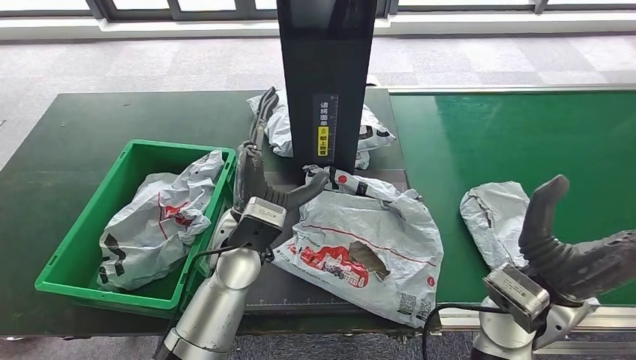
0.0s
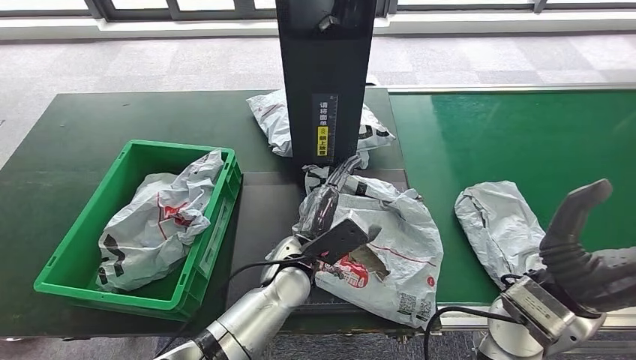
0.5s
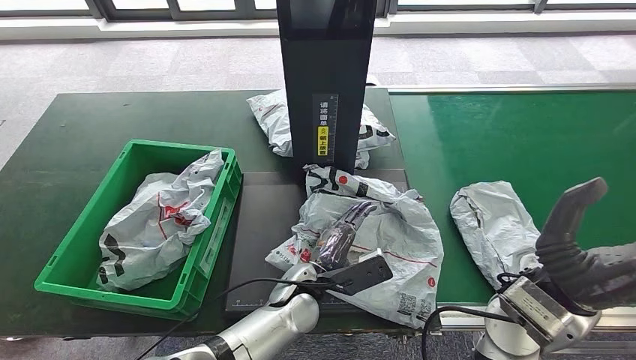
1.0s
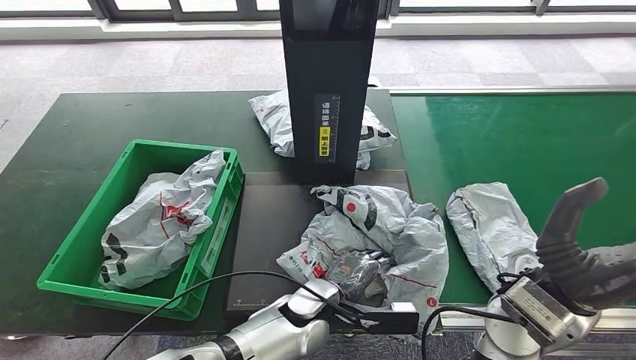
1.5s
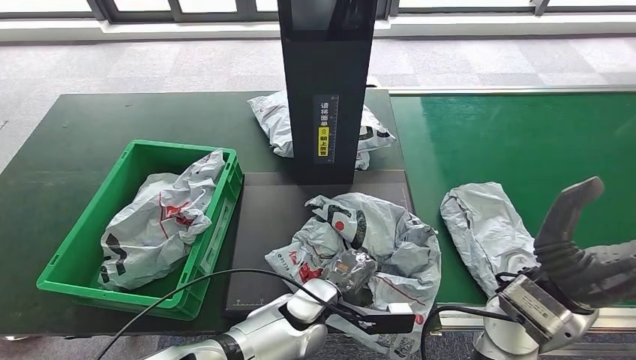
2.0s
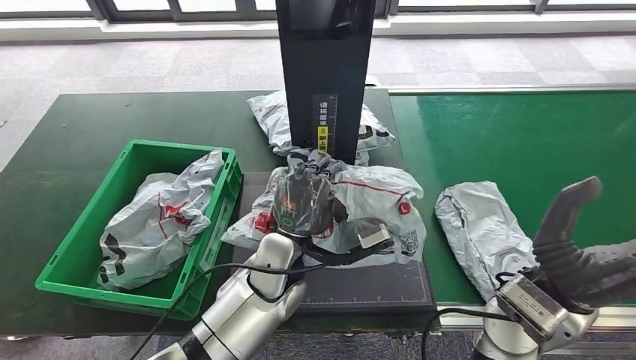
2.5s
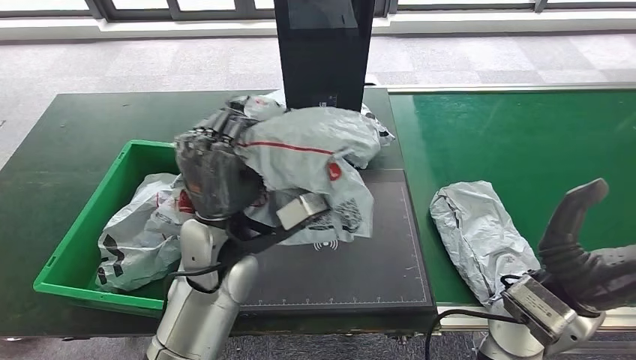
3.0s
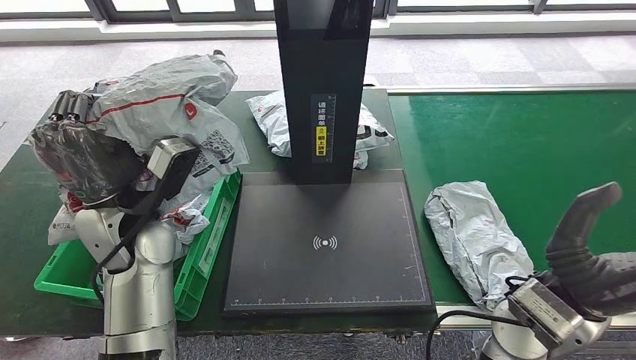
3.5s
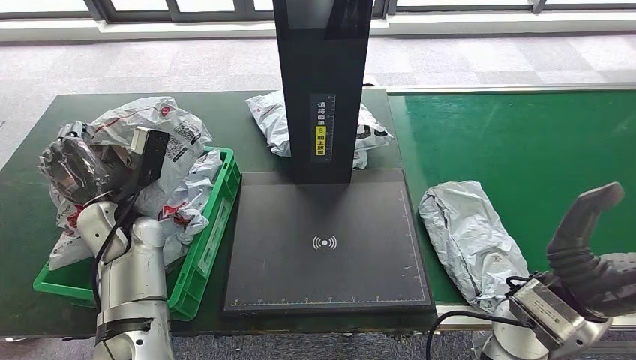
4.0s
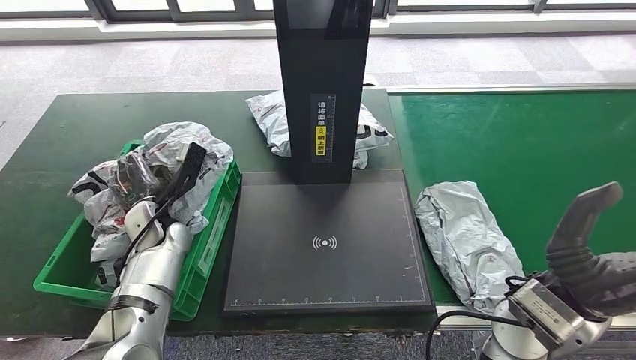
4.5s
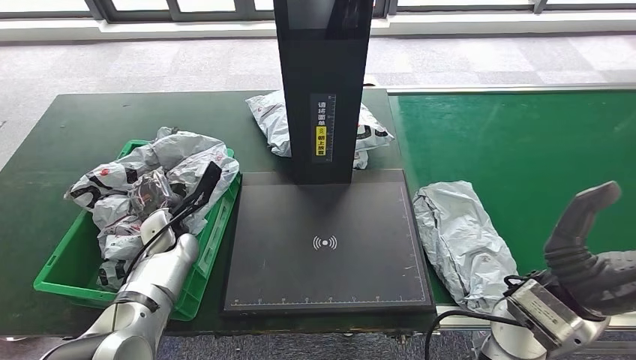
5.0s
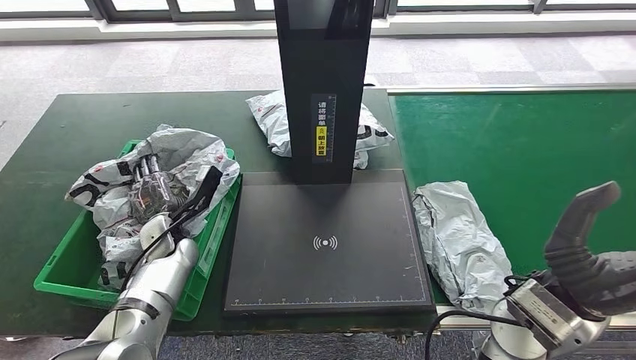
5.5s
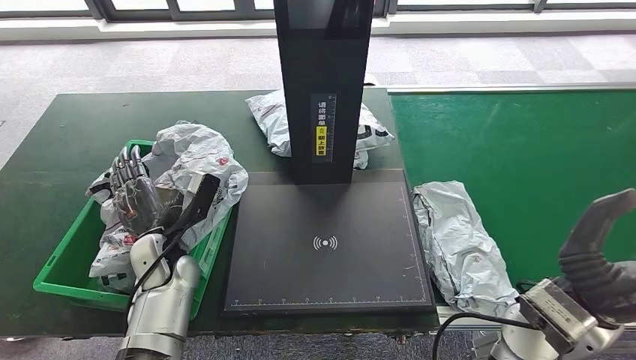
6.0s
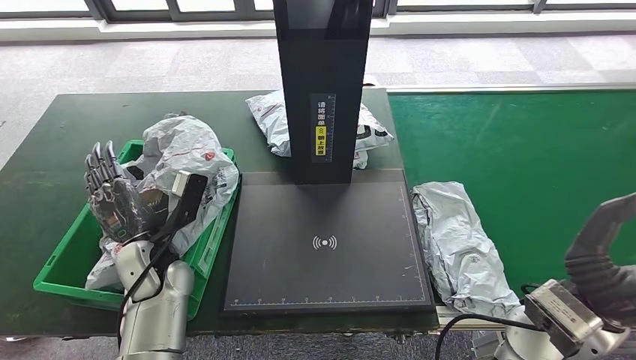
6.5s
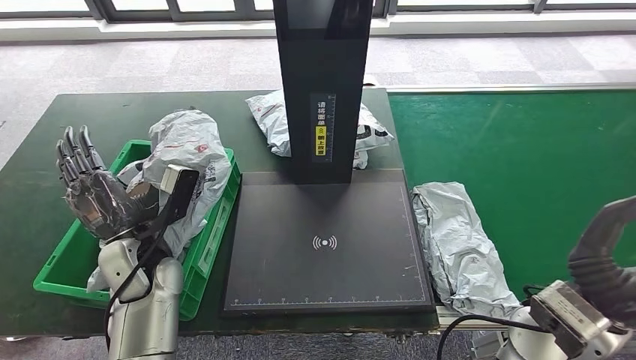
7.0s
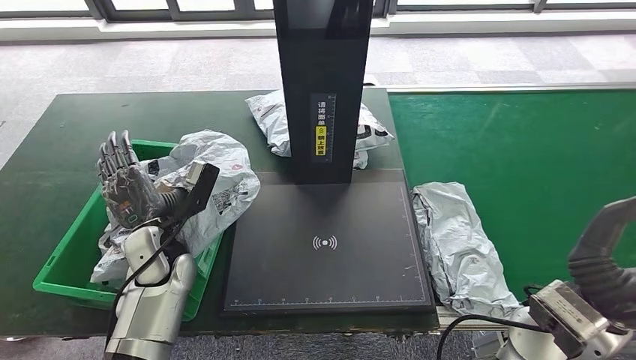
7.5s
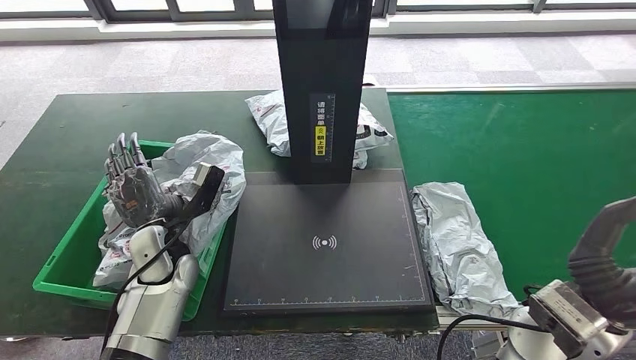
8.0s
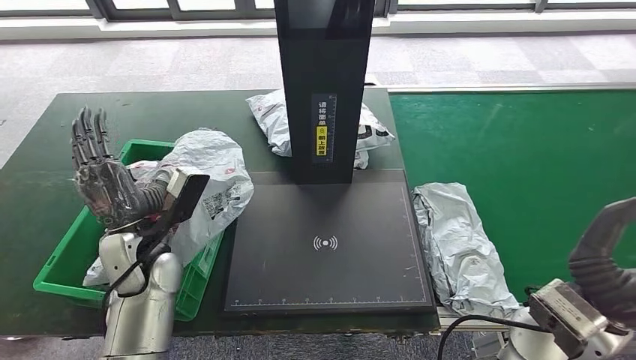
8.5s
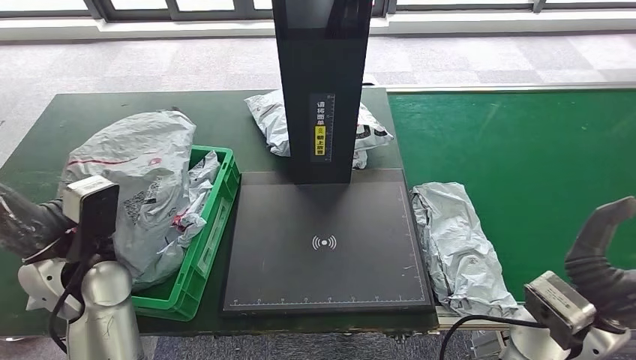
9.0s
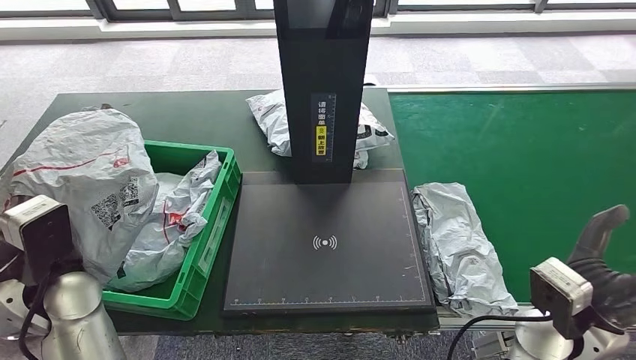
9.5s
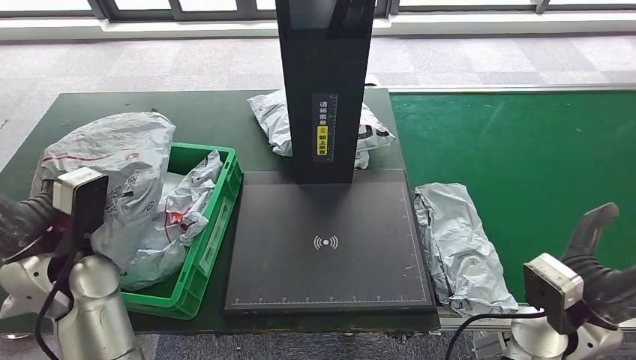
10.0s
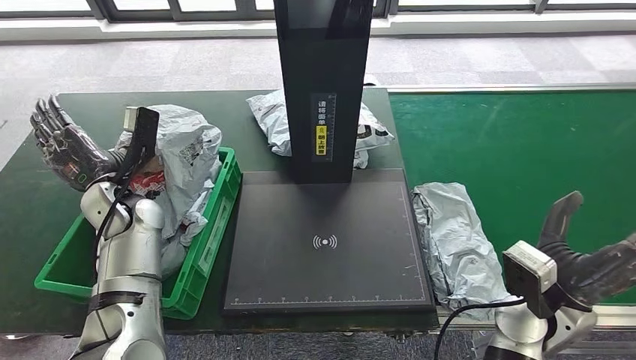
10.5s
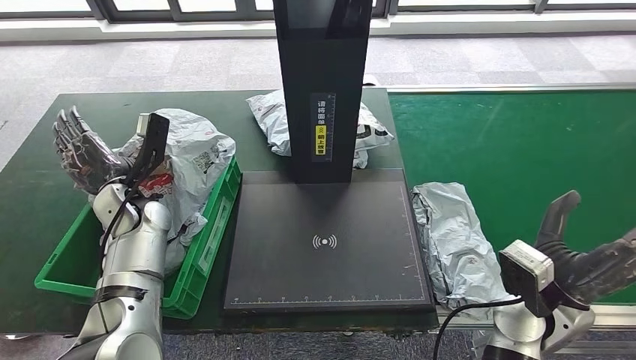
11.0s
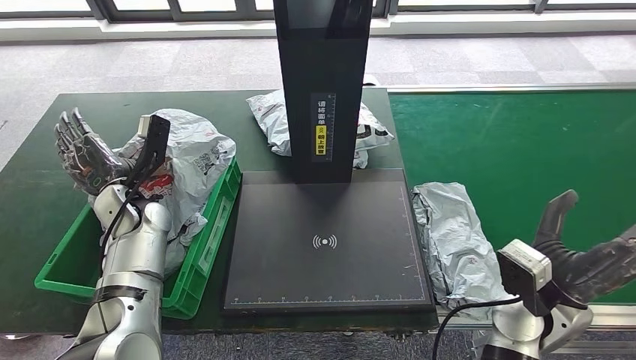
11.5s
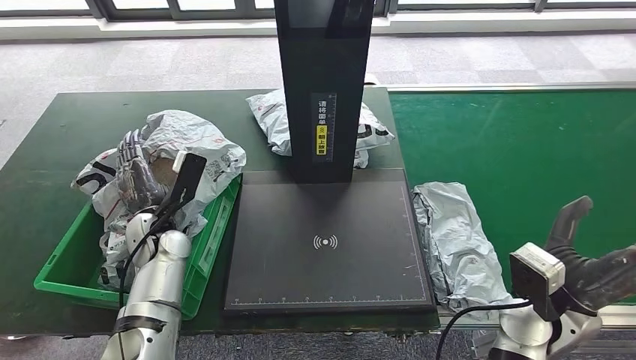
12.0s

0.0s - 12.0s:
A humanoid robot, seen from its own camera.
Step, 0.0s - 2.5s: Pick up the parcel from the inbound machine.
Step, 3.0s - 5.5s: Place the parcel into the delivery box.
6.0s - 8.0s: The hands move only a little.

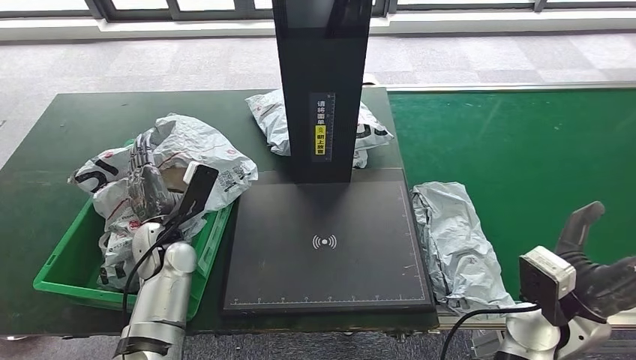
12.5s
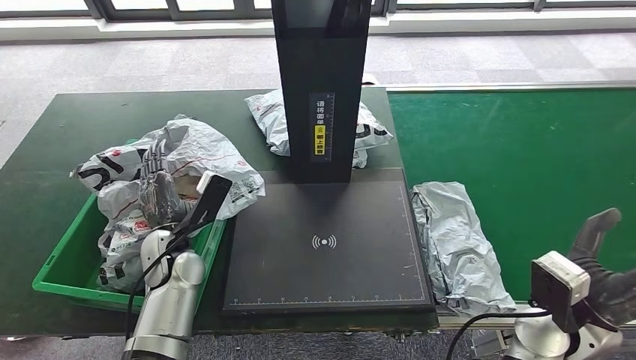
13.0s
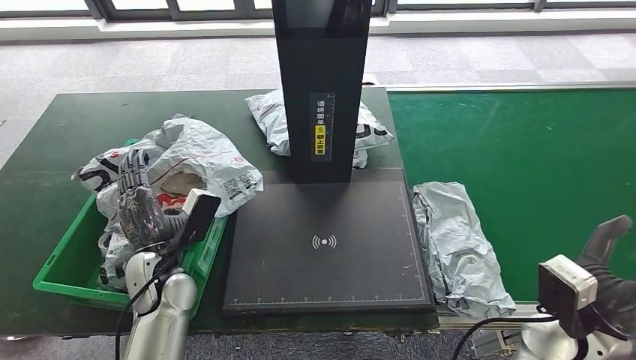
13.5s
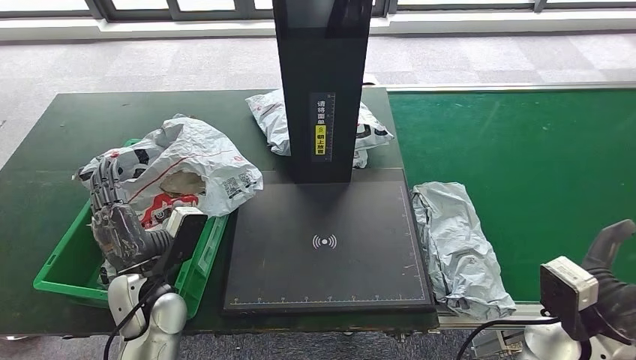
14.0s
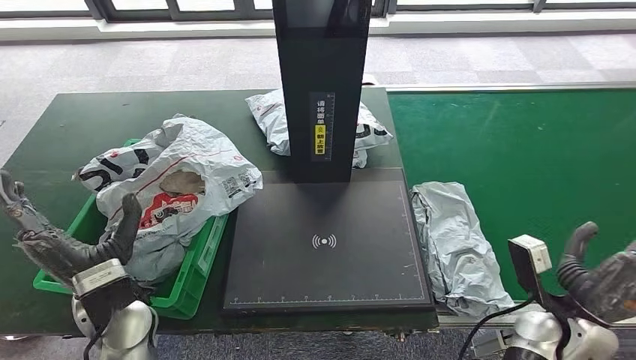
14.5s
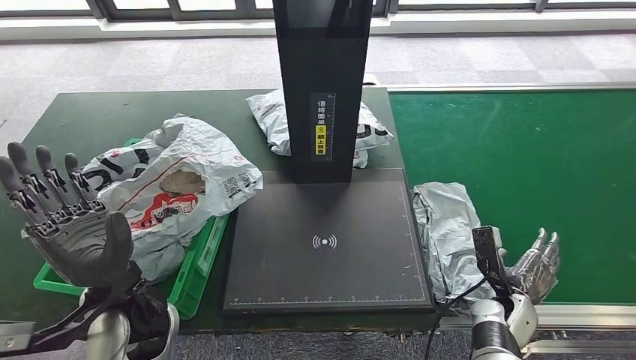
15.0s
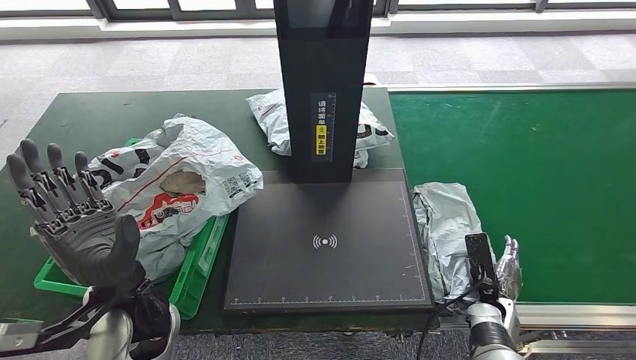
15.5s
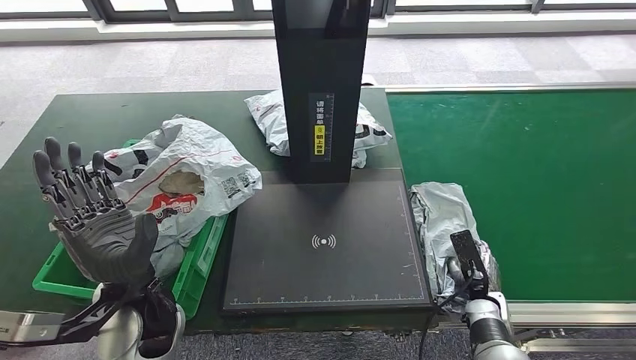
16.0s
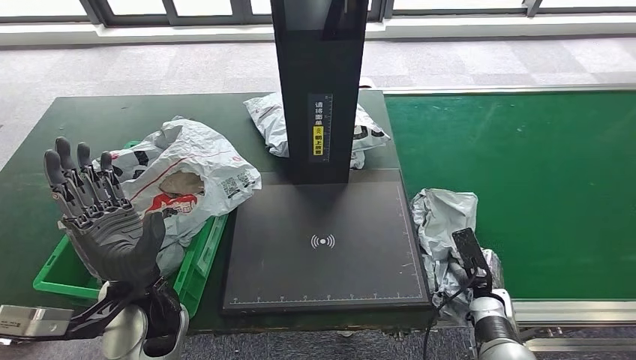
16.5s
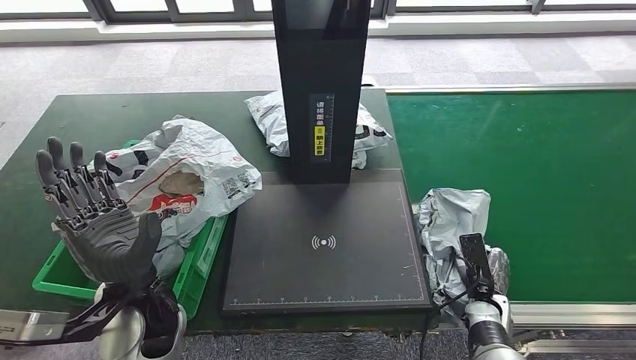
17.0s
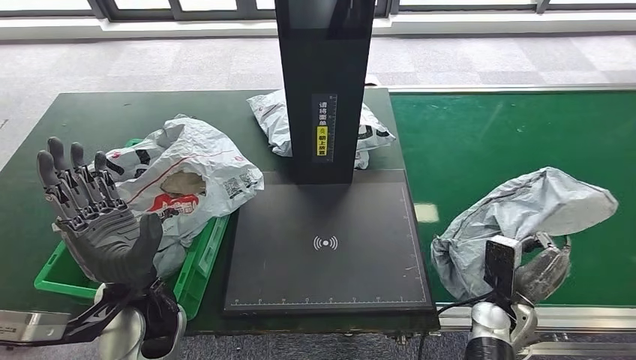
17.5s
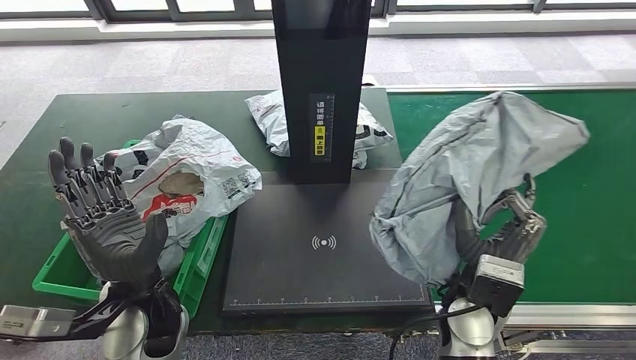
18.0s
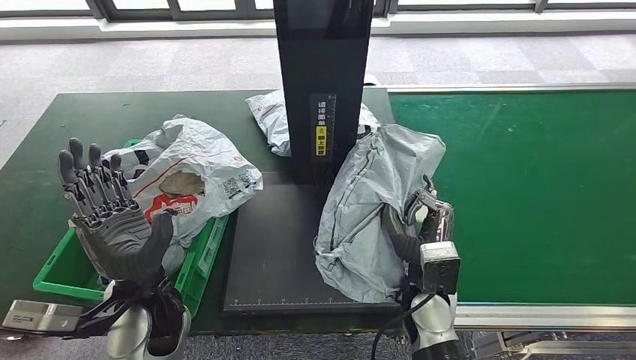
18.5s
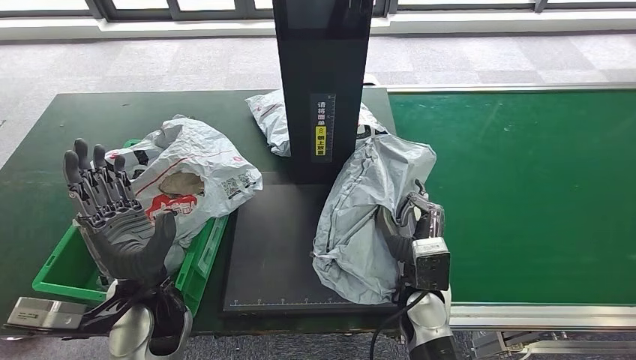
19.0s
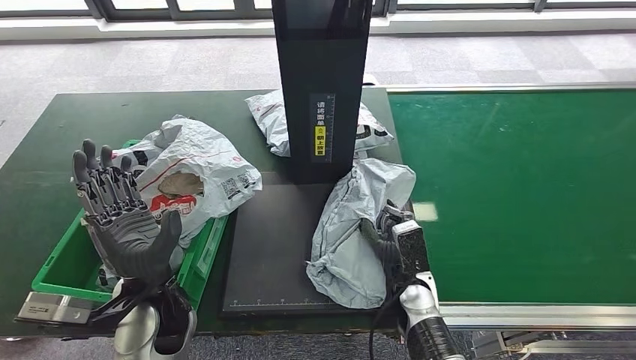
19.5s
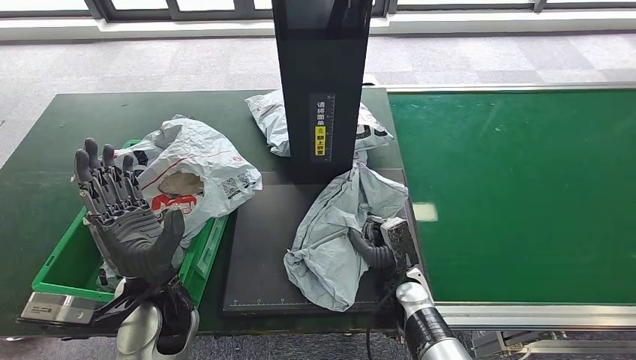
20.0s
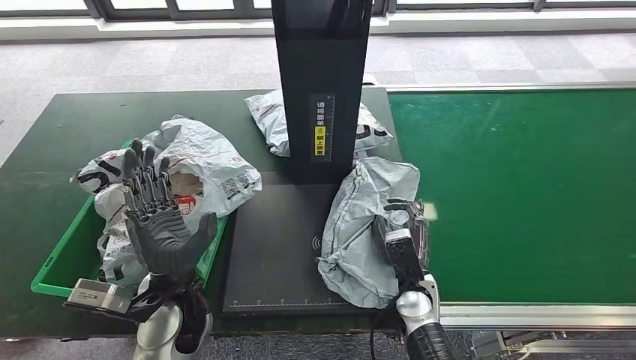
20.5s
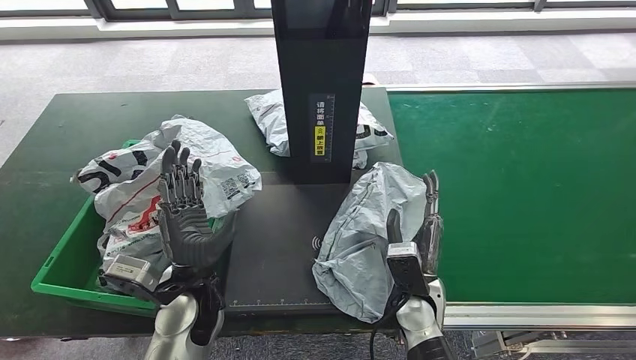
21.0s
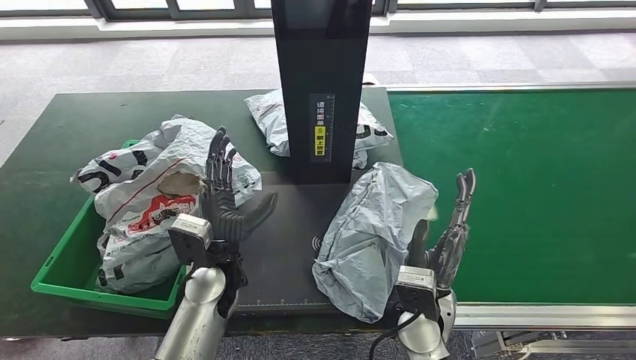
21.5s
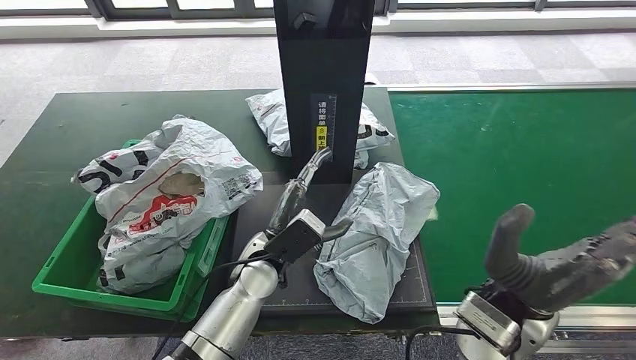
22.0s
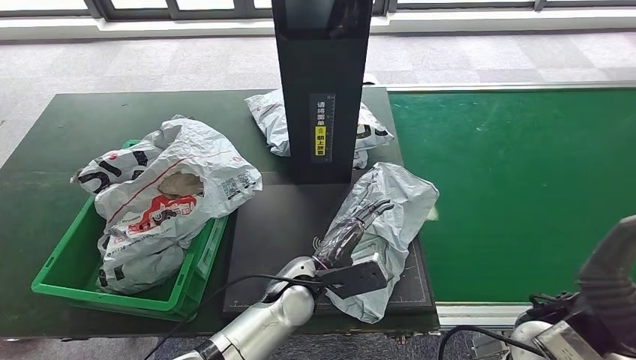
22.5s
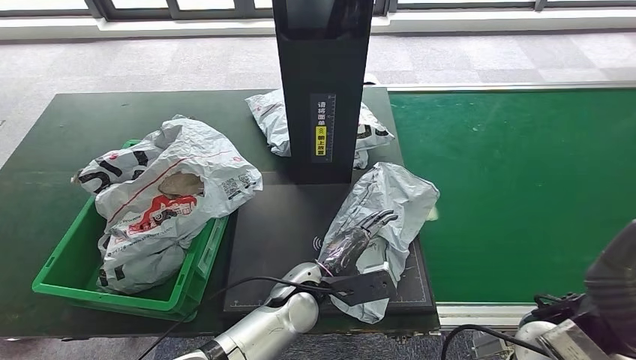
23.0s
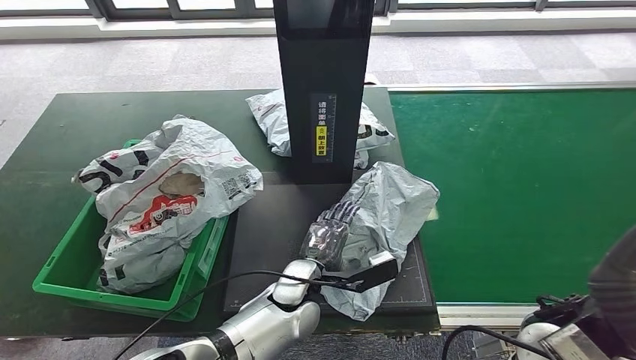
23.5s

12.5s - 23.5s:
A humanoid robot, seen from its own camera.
Step, 15.0s - 17.5s: Pick up the parcel from the conveyor belt.
Step, 18.0s - 21.5s: Place the parcel onto the inbound machine.
12.5s - 14.5s: The left hand is displaced backward by roughly 10 cm. Meanwhile the right hand ends up some 5 cm from where it was.
14.5s - 16.0s: The right hand shifts roughly 15 cm downward and forward.
16.0s - 18.0s: The right hand is displaced upward and to the left by some 20 cm.
20.0s - 21.5s: The left hand heads to the right and forward, covering approximately 10 cm; the right hand goes approximately 10 cm upward.
21.5s - 23.5s: The left hand shifts some 10 cm to the right and downward. Meanwhile the right hand goes approximately 20 cm upward and to the right.
